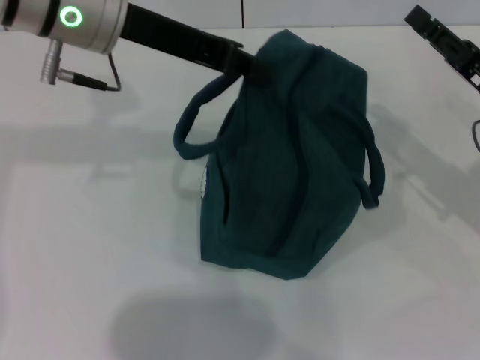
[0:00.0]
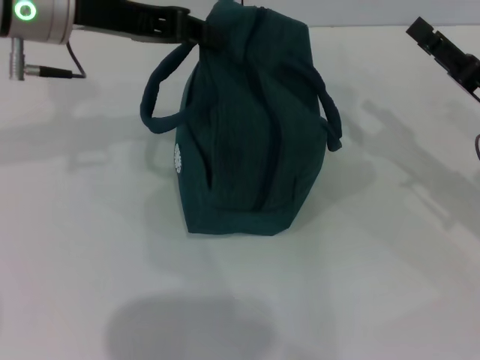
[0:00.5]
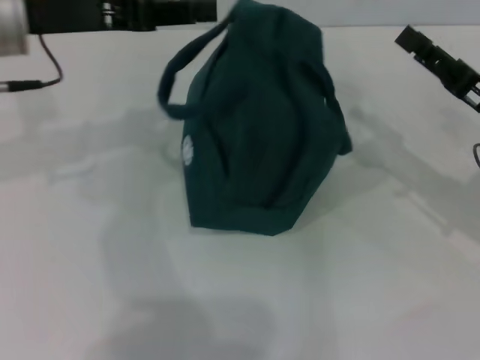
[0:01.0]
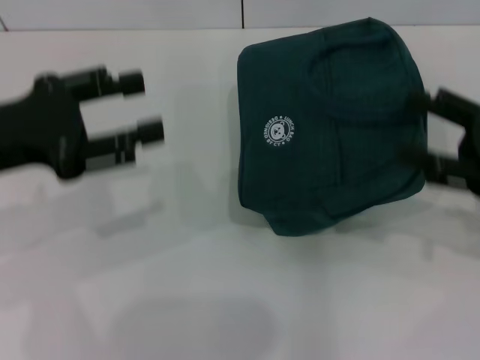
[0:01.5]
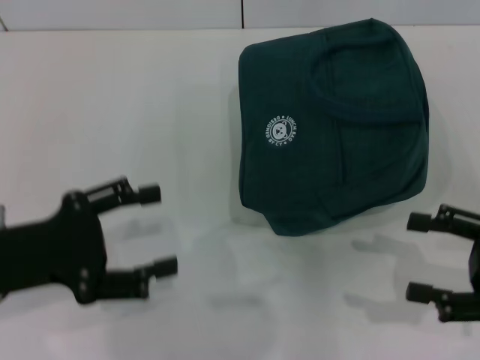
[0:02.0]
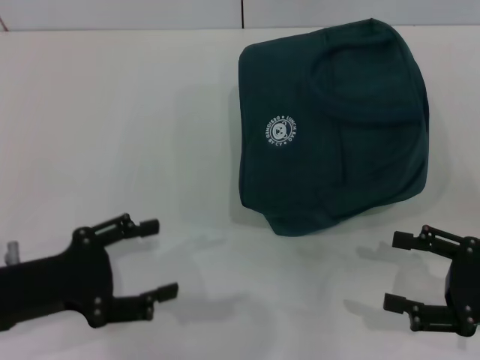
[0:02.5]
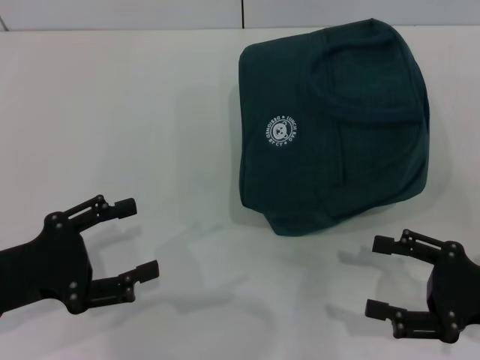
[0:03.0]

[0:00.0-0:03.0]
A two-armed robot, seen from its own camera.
0:00.0 to 0:01.5: The right gripper is displaced backward by approximately 5 cm, and opens up. The left gripper heads to the left, backward and downward, covering approximately 20 cm, and opens its fingers.
0:01.5 to 0:03.0: The two grippers go approximately 10 cm downward and backward. The left gripper opens its fingers.

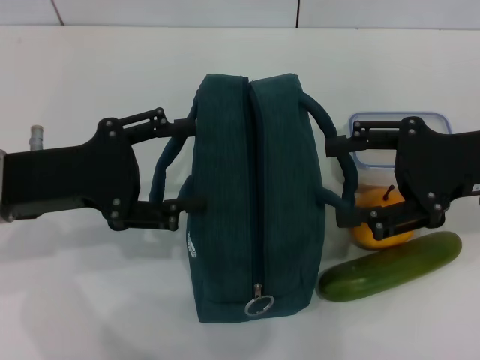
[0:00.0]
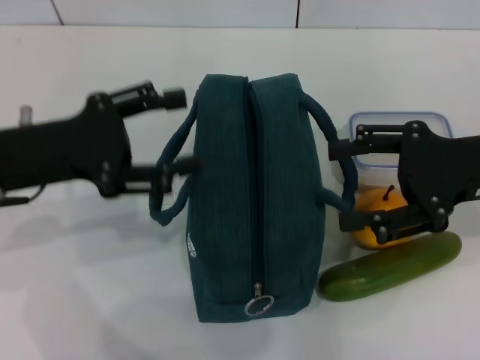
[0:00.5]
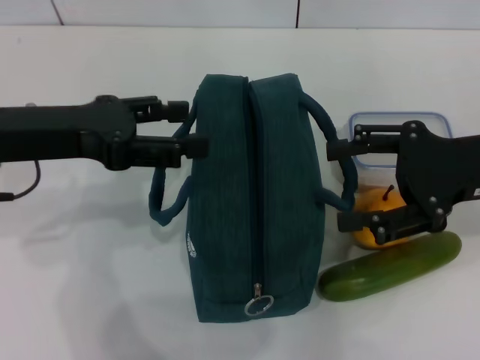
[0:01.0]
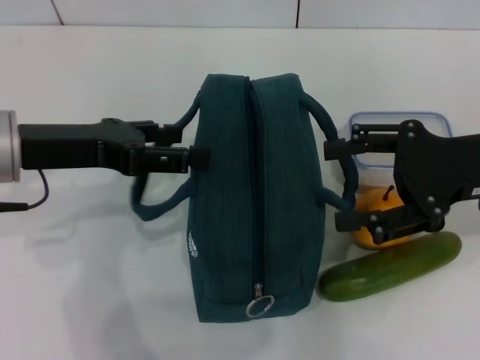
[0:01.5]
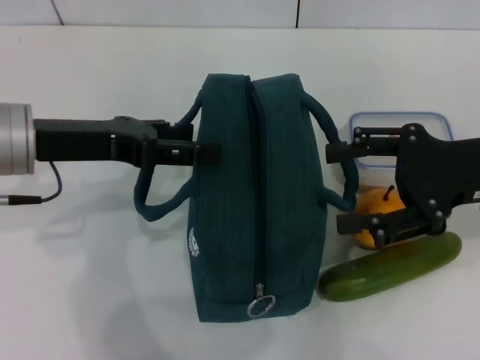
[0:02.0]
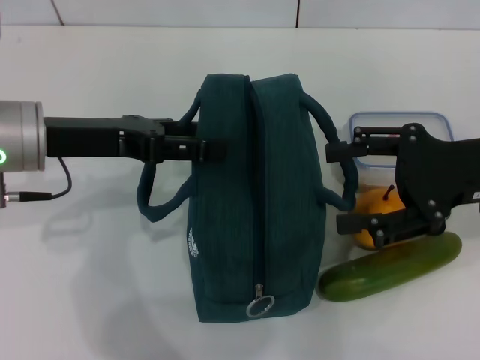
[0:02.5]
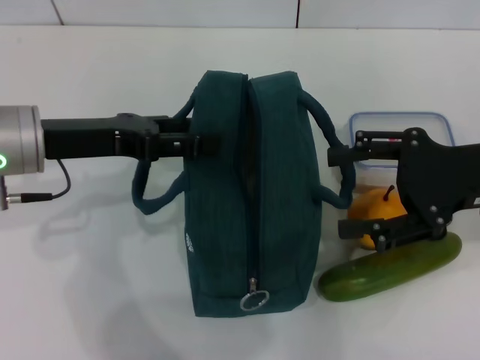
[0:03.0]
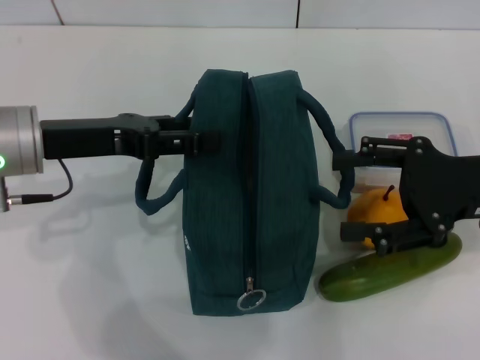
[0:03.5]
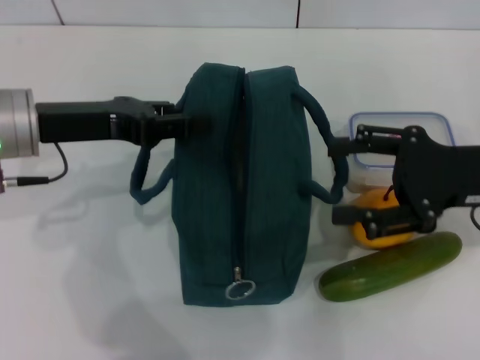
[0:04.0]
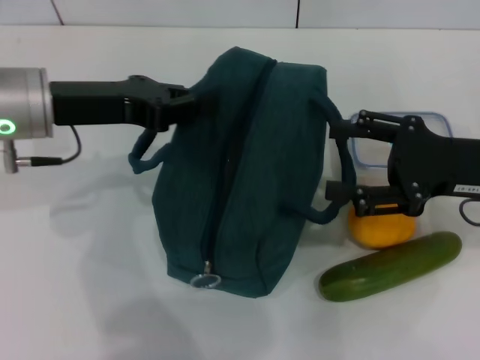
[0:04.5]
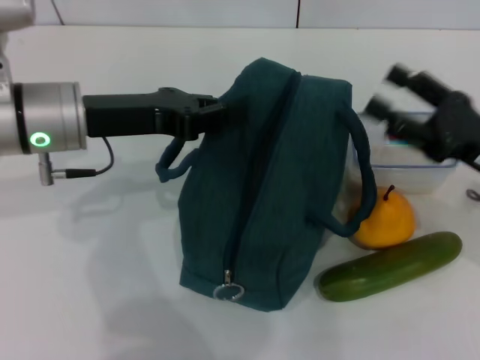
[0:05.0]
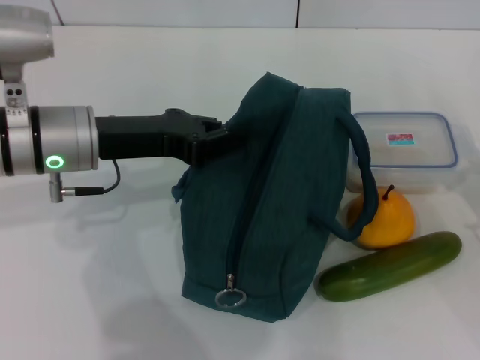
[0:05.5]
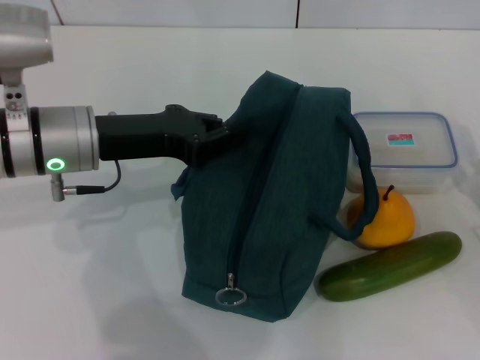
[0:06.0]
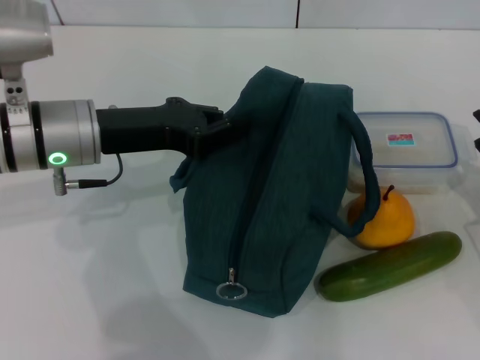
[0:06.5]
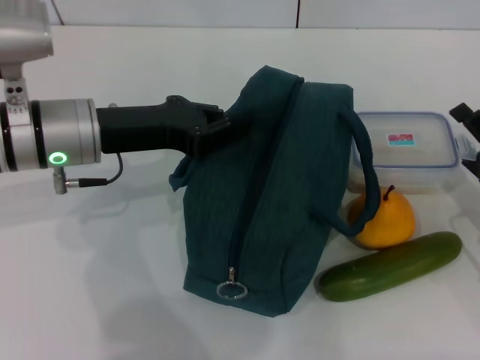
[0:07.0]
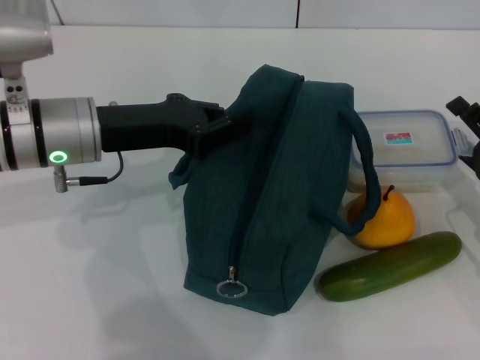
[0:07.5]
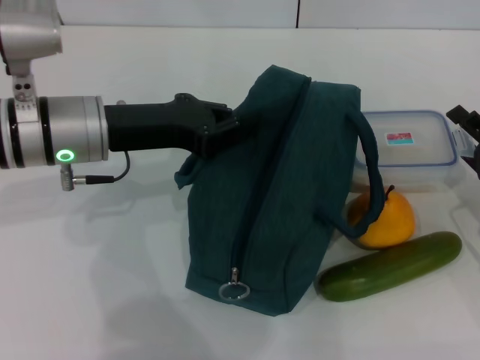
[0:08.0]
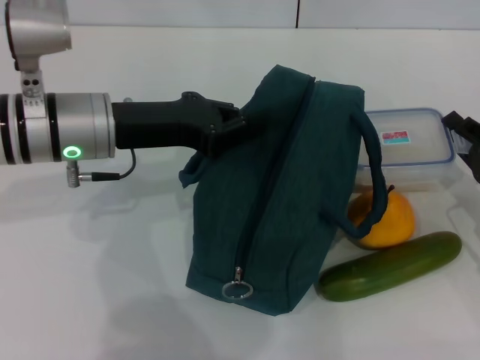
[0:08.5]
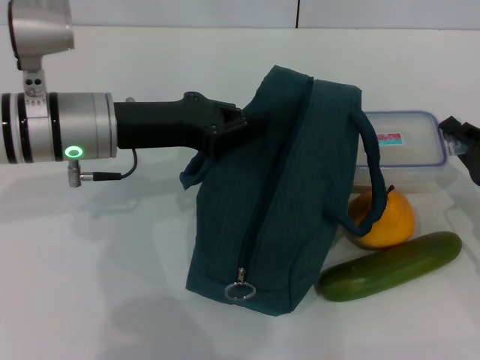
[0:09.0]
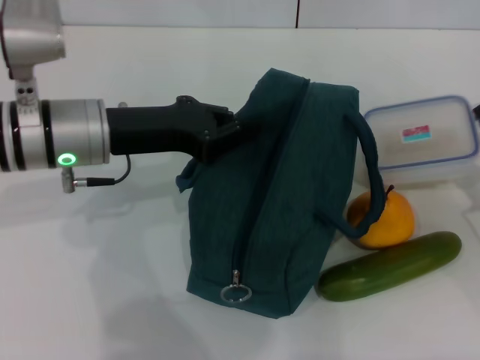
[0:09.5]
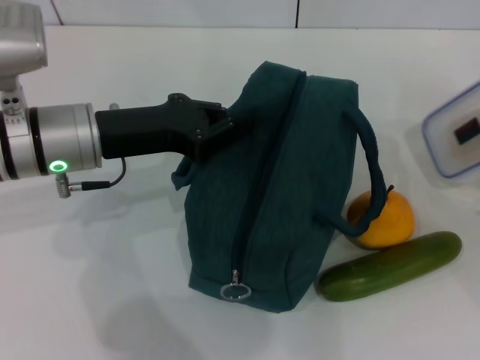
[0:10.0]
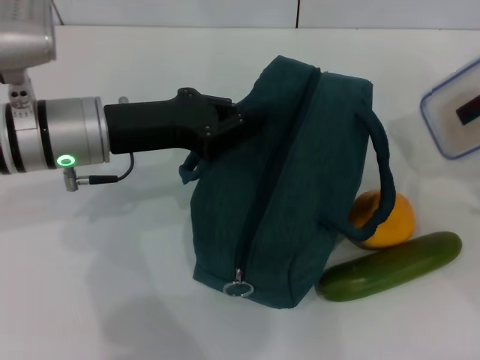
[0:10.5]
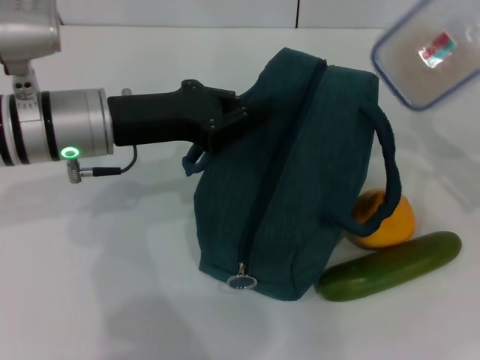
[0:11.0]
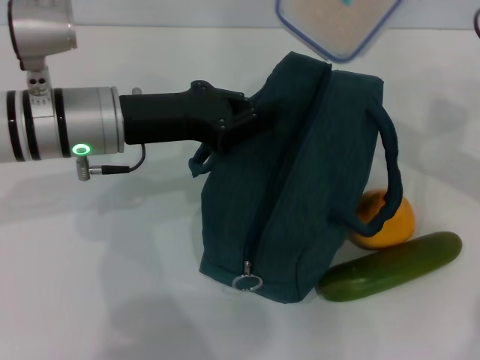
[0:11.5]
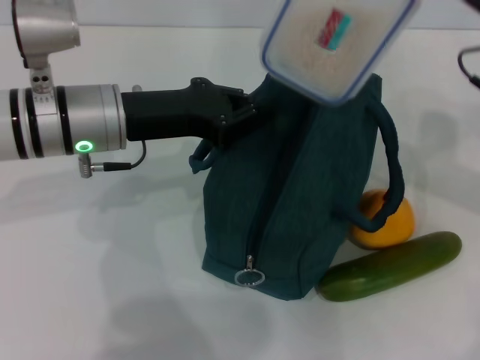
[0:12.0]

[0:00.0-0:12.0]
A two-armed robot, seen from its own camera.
Step, 0:00.0 to 0:03.0: Hold the lunch bag with your left hand.
Step, 0:03.5 to 0:09.0: Pick up the lunch box with your right hand.
0:02.0 to 0:04.0: The left gripper closes up.
0:04.0 to 0:06.0: The right gripper travels downward, to the right and backward by about 15 cm. The left gripper closes up.
0:06.0 to 0:08.0: The grippers stay close to where they were, moving slightly.
0:08.0 to 0:10.0: The right gripper shifts by roughly 5 cm, and closes up.
0:10.0 to 0:12.0: The right gripper shifts approximately 20 cm upward, to the left and forward.

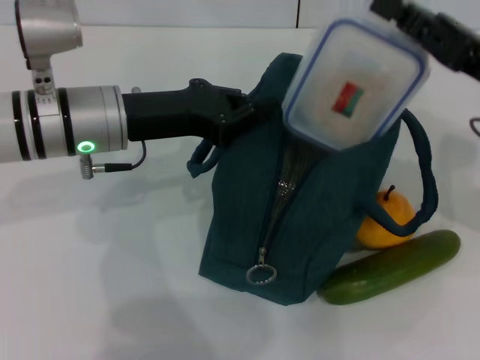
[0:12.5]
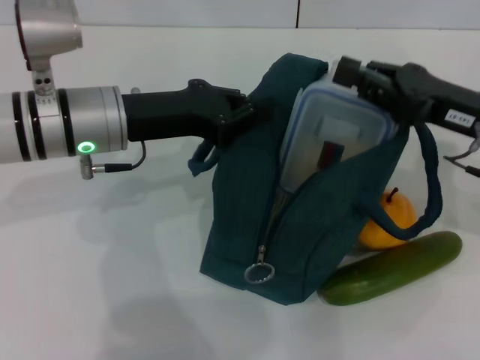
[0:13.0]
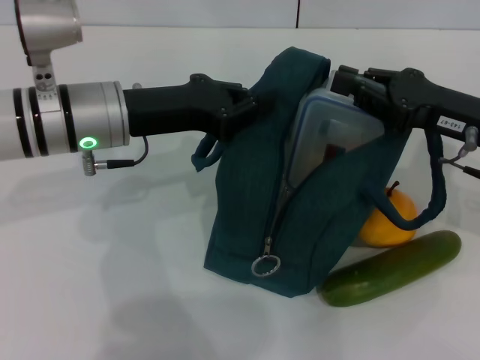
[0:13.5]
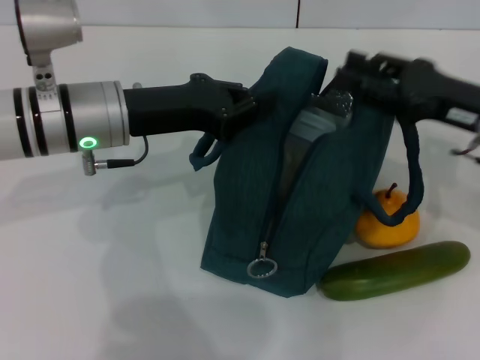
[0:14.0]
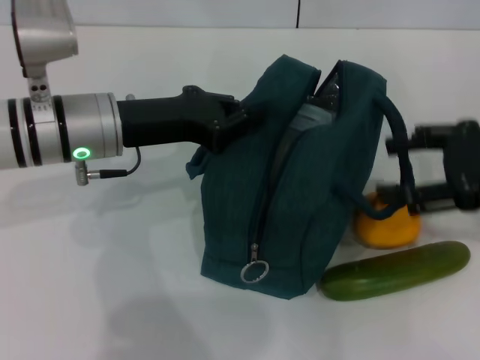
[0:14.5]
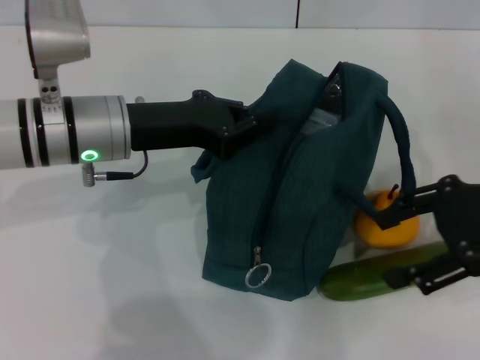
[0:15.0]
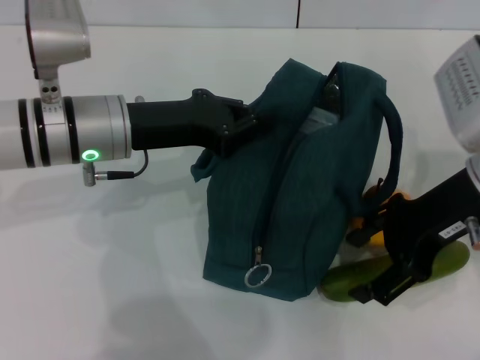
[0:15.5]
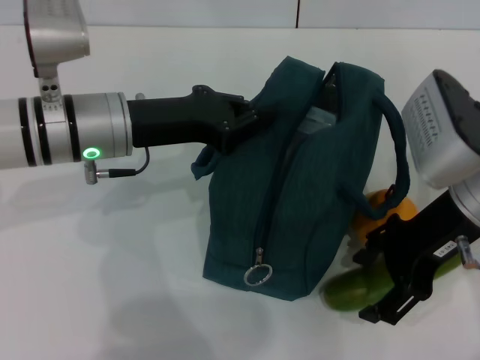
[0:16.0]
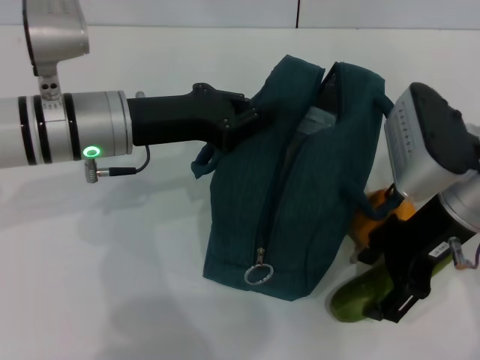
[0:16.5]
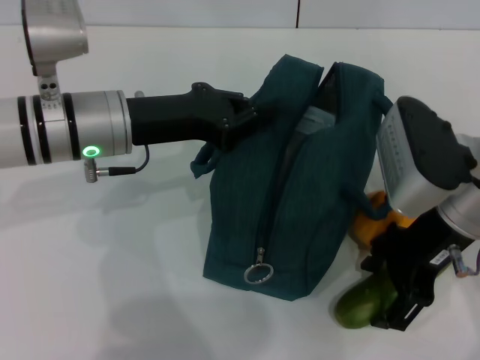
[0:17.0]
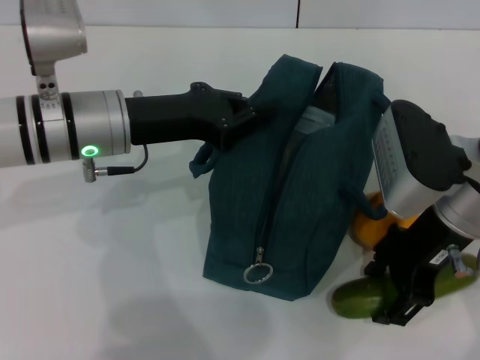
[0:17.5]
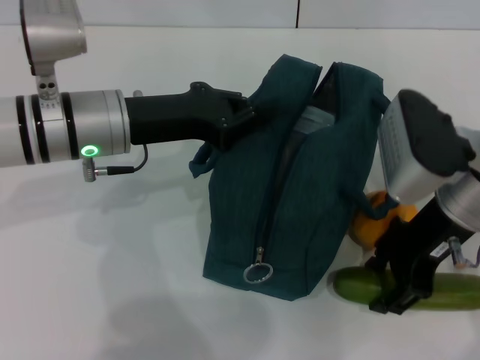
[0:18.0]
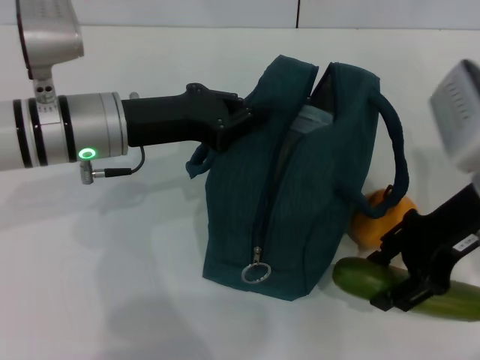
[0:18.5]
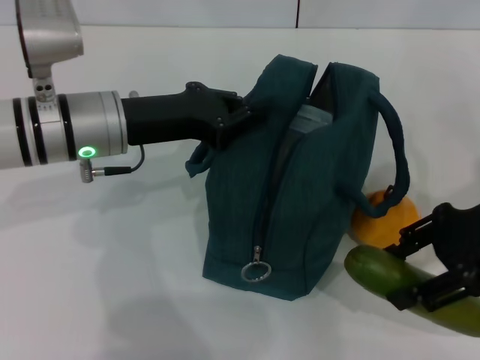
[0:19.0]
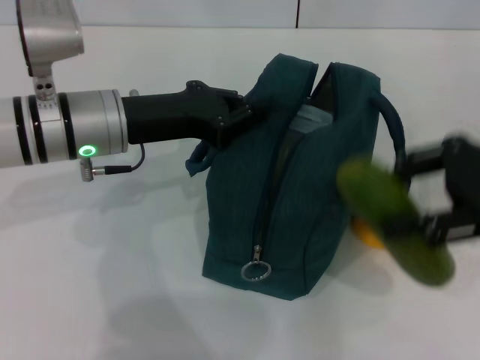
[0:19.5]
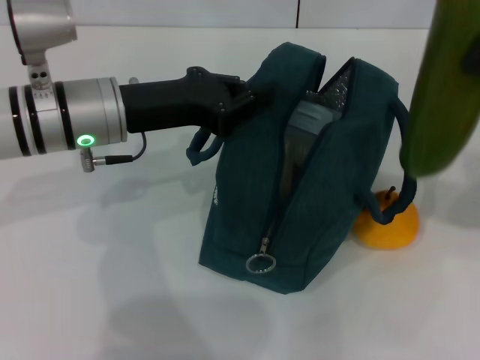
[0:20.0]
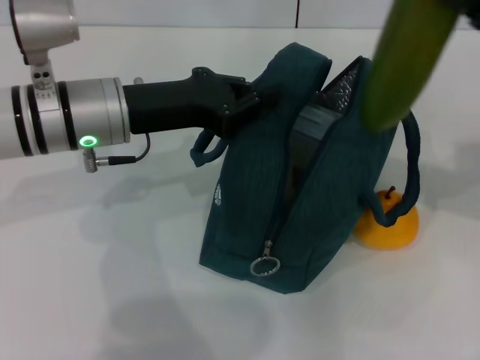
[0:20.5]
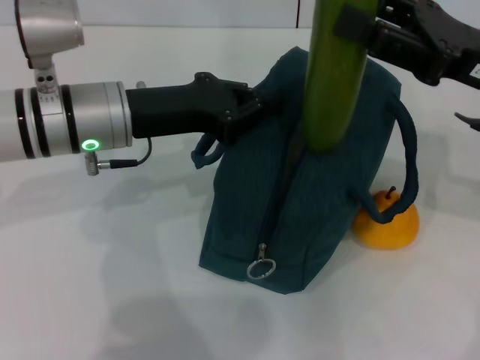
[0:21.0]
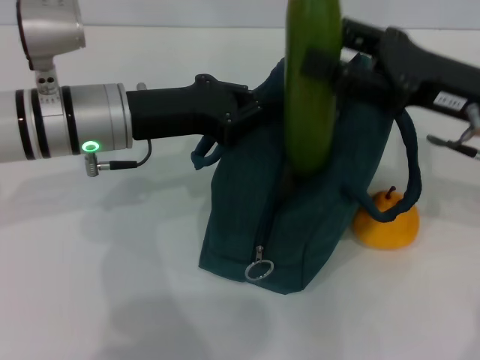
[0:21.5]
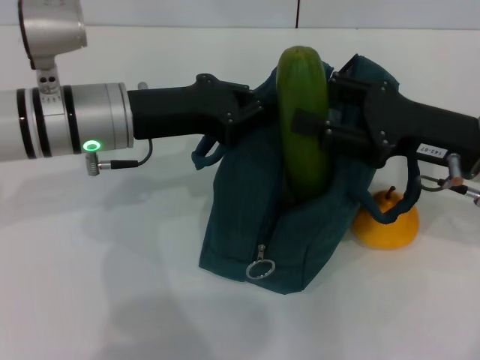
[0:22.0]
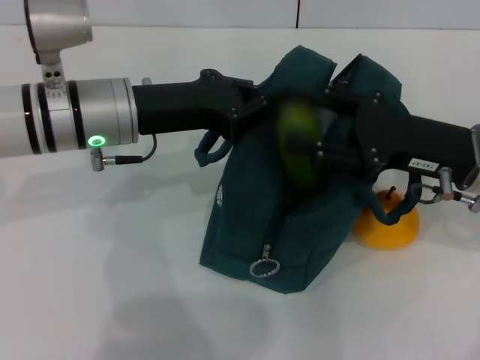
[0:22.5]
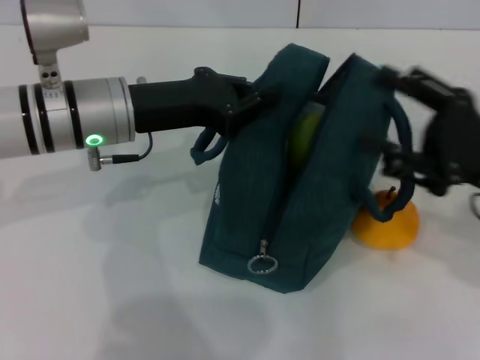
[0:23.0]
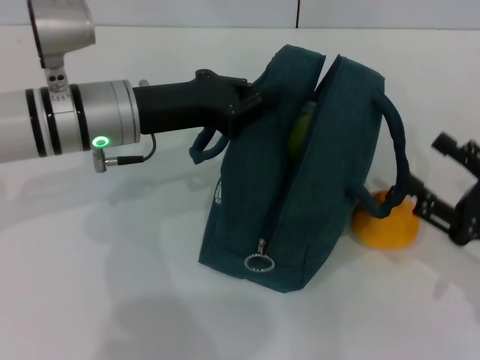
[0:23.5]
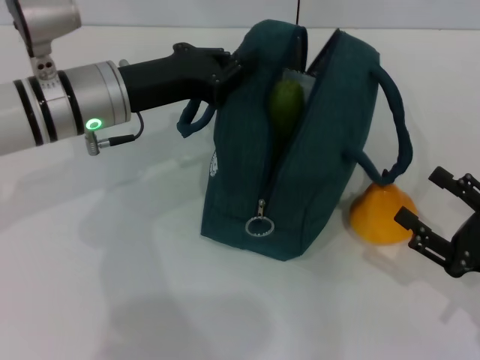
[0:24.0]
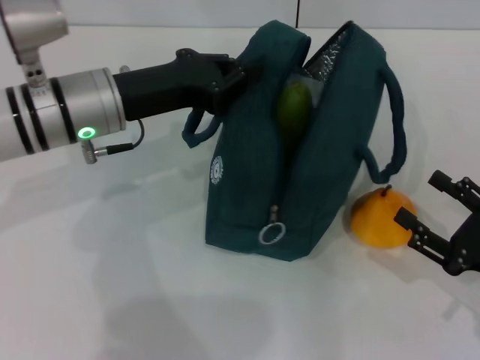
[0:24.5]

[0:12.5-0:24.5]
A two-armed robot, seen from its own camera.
Step, 0:14.5 to 0:17.5: Pick up the cucumber with your right hand.
Step, 0:18.0 to 0:22.5: Put the cucumber into the lunch bag with your right hand.
0:12.5 to 0:14.5: The right gripper changes place by some 5 cm, and opens its fingers.
0:14.5 to 0:16.5: The right gripper goes roughly 10 cm to the left.
0:16.5 to 0:18.5: There are only small adjustments of the grippers.
0:18.5 to 0:20.5: The right gripper shifts some 5 cm to the right.
0:20.5 to 0:22.5: The right gripper moves downward and to the left, roughly 10 cm.
0:22.5 to 0:24.5: The right gripper moves backward, downward and to the right, roughly 15 cm.
